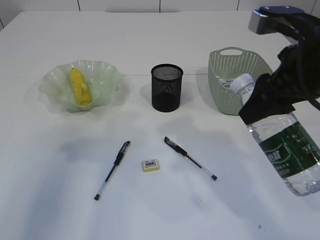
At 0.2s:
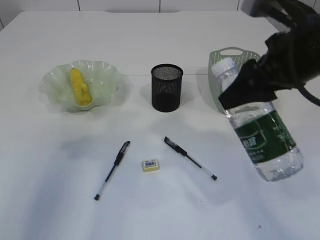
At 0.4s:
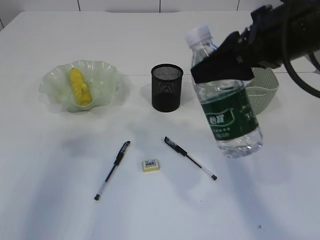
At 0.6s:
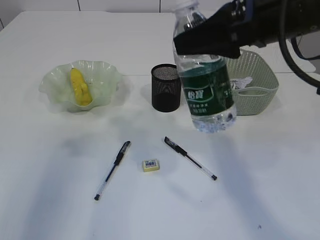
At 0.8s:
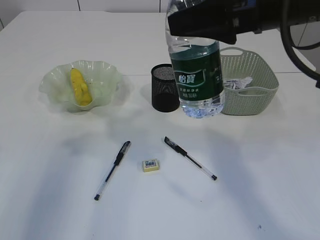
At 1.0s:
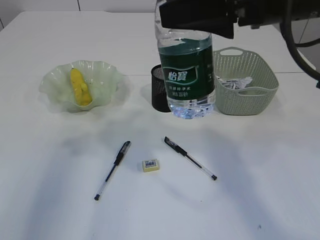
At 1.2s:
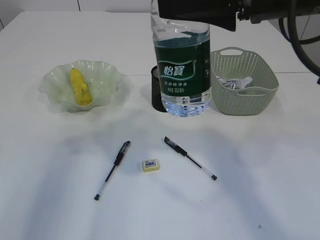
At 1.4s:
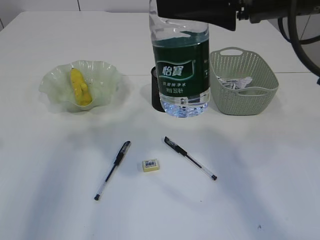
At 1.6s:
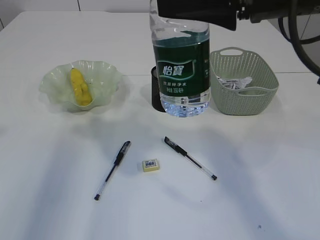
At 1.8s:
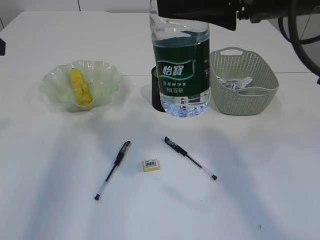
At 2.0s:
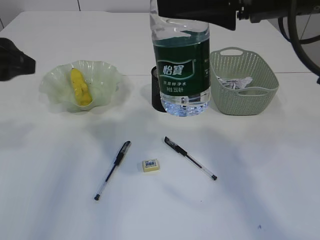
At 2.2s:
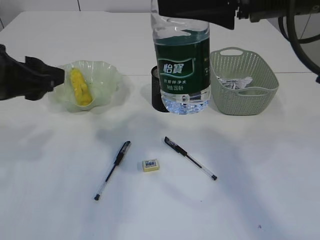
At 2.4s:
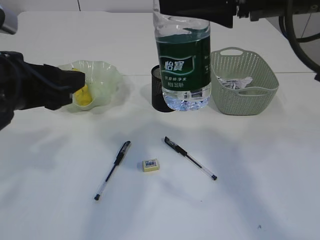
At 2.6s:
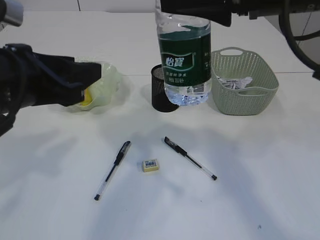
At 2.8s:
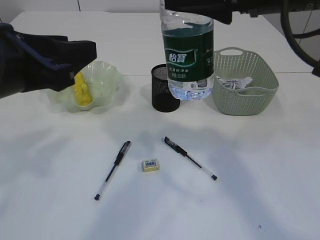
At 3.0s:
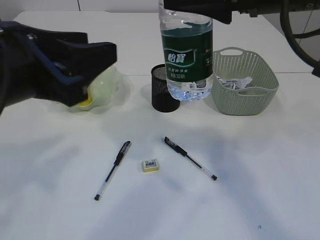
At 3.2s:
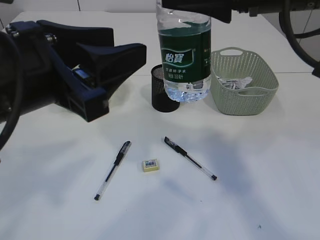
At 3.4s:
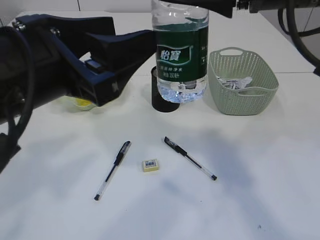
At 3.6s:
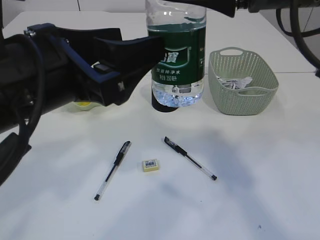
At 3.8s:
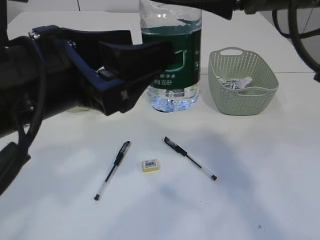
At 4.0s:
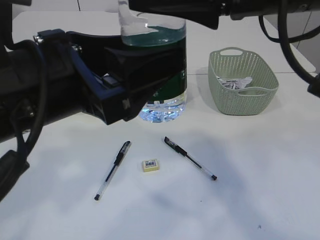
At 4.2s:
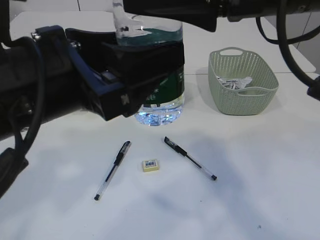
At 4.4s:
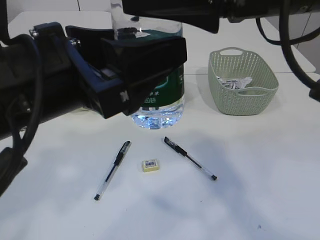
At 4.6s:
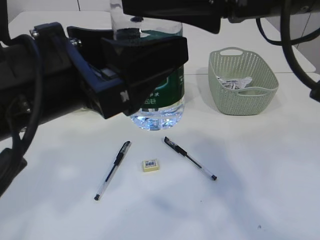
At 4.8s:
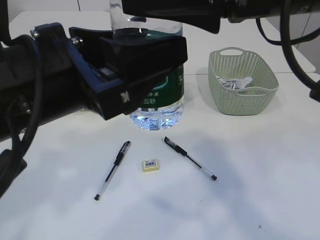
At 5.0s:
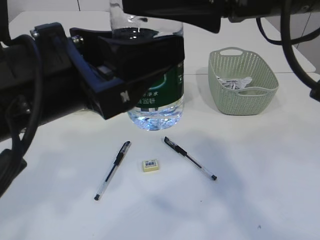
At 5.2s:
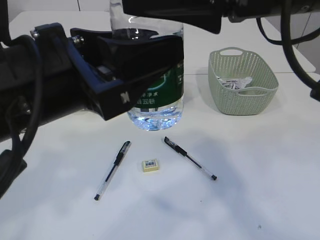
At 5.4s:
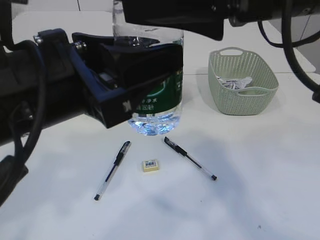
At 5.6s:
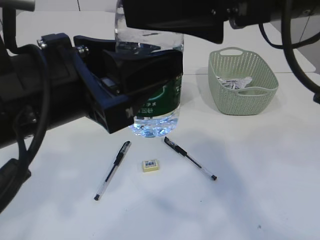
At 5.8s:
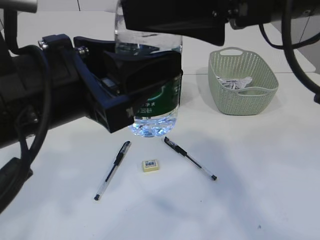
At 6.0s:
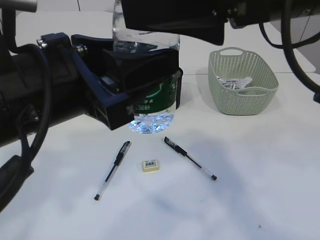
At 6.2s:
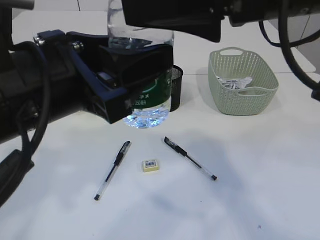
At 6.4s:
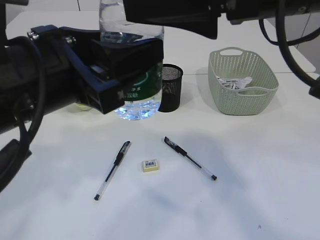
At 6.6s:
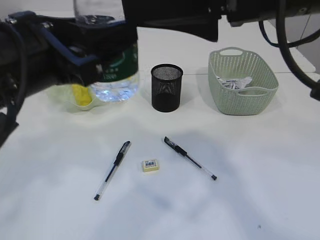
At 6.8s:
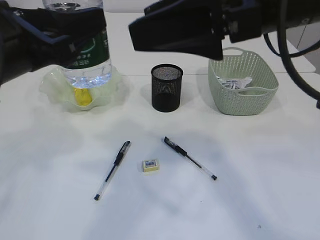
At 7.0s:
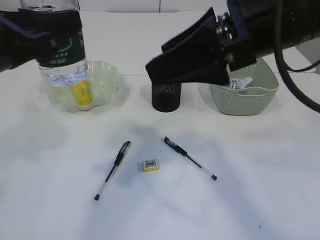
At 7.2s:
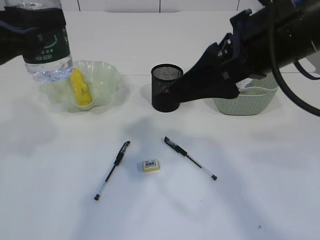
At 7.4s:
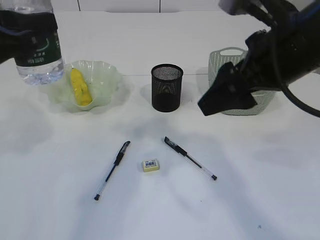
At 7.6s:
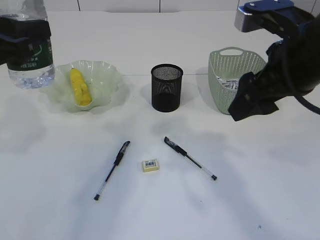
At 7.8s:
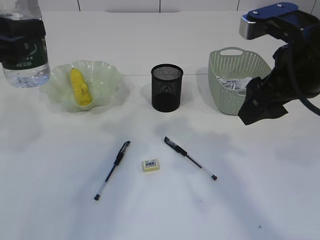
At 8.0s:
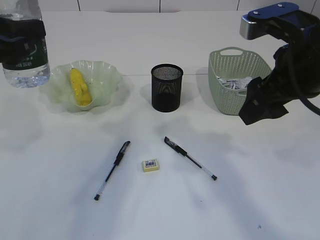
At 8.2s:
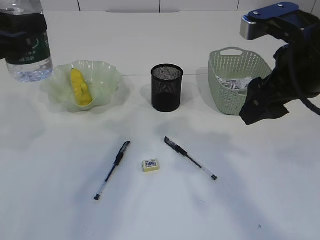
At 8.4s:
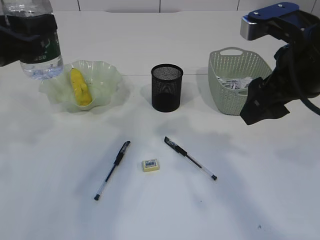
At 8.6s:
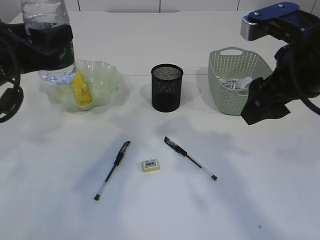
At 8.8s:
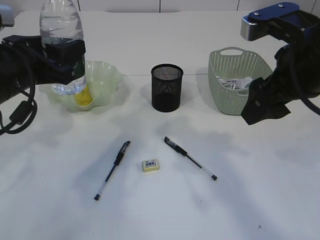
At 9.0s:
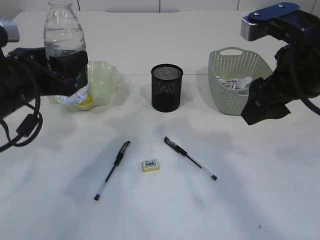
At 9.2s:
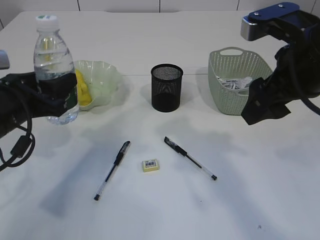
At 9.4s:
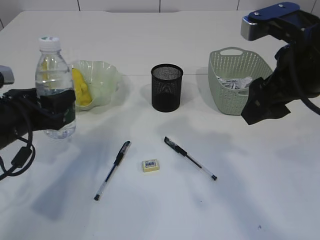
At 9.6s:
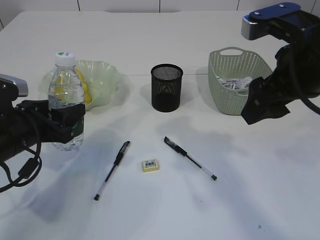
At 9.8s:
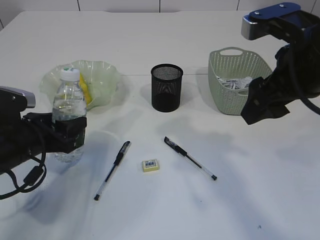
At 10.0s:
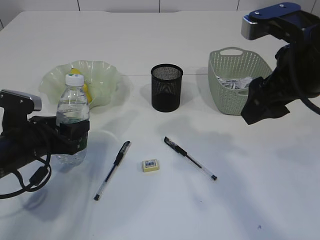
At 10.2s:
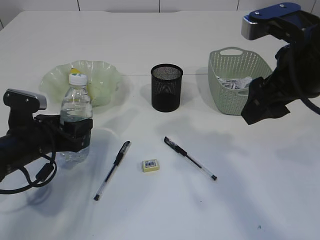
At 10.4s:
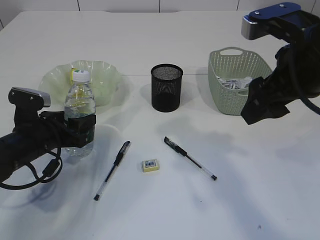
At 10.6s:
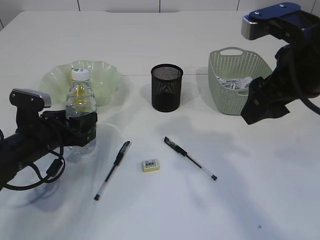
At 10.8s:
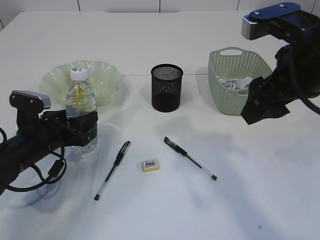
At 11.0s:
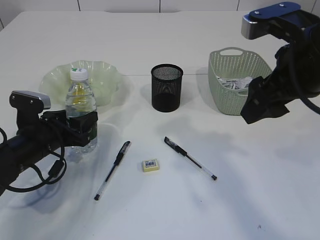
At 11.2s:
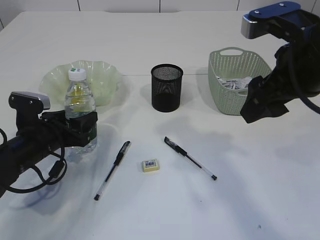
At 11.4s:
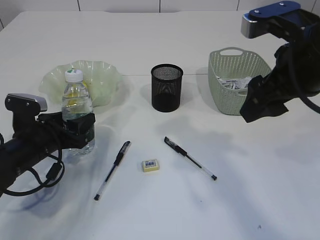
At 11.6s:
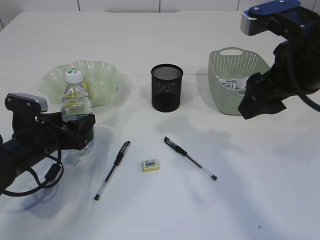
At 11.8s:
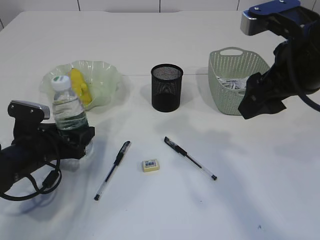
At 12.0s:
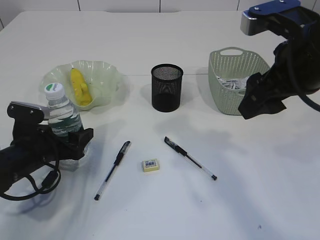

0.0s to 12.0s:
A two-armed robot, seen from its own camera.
Step, 0.0s to 6.4s: transfer the bottle to the left arm.
0.0s to 1.6s: The right gripper travels upward and to the left by roughly 10 cm.
1.6s to 3.0s: The left gripper heads to the right and backward, covering approximately 15 cm.
3.0s to 4.4s: The left gripper moves about 5 cm, and opens.
4.4s to 6.0s: The left gripper closes up.
6.0s to 7.6s: The right gripper travels downward and to the right by some 10 cm; the left gripper shifts about 15 cm to the left and forward.
7.6s to 9.0s: The left gripper moves downward, some 5 cm.
9.0s to 10.4s: The left gripper is displaced downward by roughly 15 cm.
10.4s to 12.0s: The grippers stay close to where they were, moving slightly.

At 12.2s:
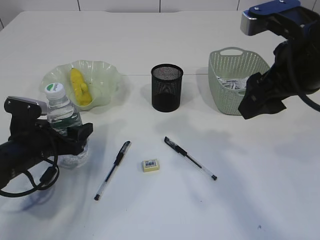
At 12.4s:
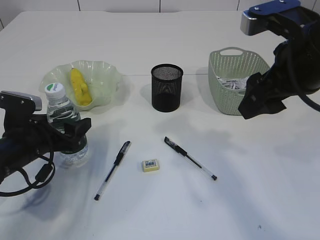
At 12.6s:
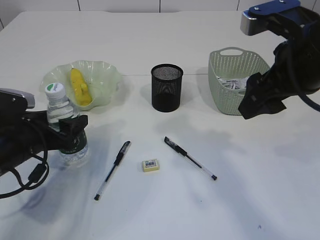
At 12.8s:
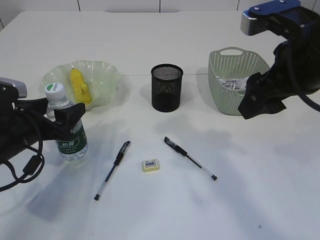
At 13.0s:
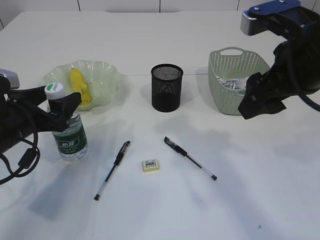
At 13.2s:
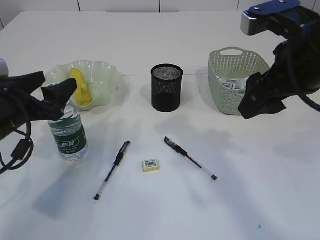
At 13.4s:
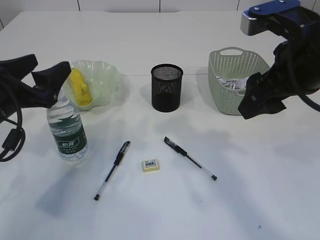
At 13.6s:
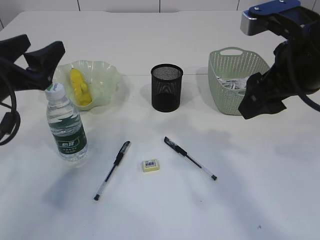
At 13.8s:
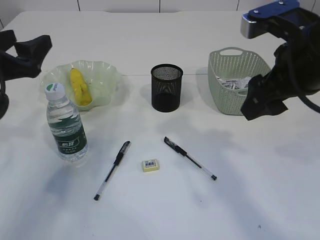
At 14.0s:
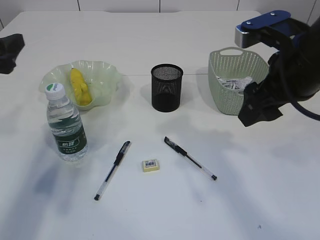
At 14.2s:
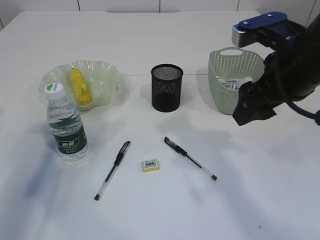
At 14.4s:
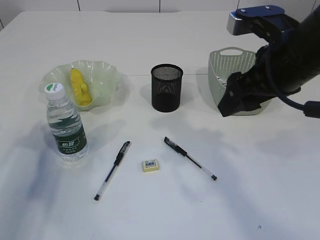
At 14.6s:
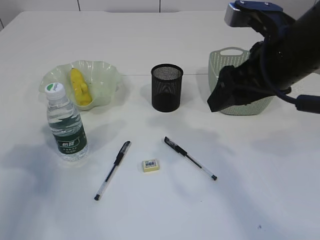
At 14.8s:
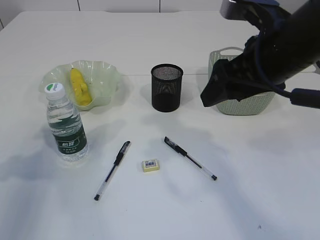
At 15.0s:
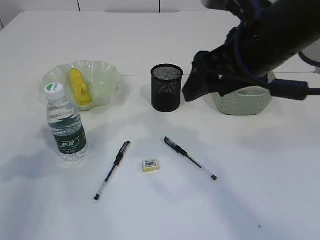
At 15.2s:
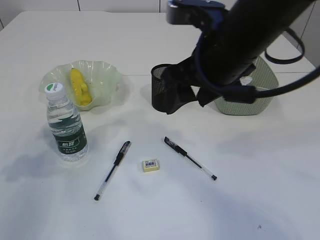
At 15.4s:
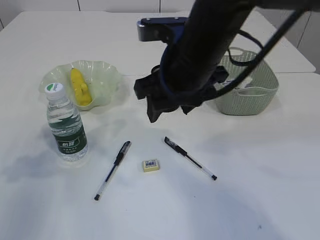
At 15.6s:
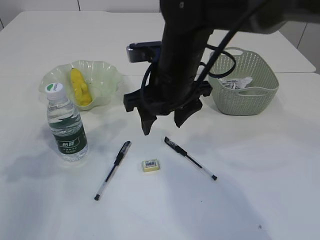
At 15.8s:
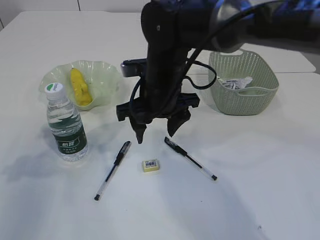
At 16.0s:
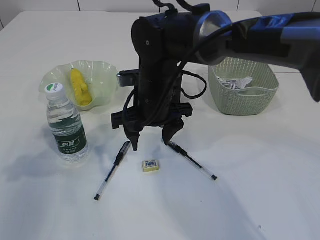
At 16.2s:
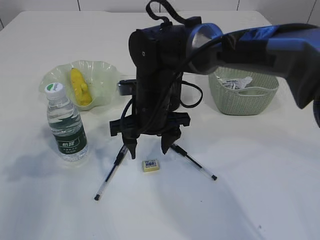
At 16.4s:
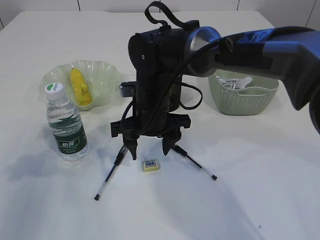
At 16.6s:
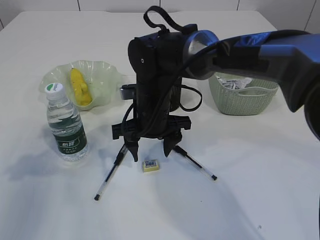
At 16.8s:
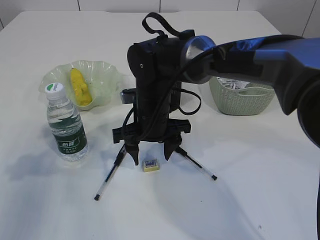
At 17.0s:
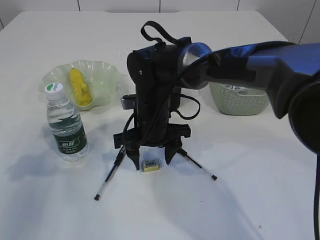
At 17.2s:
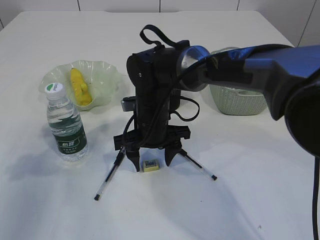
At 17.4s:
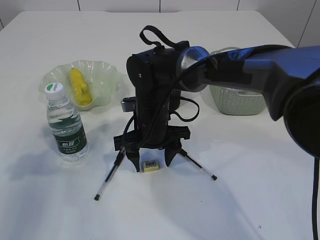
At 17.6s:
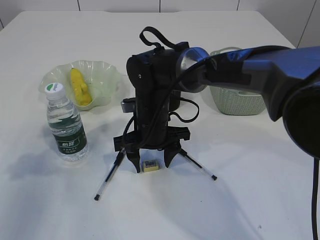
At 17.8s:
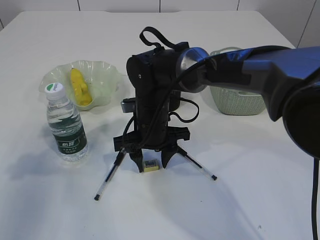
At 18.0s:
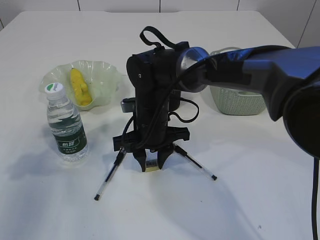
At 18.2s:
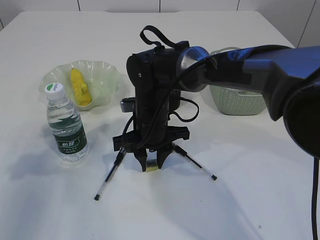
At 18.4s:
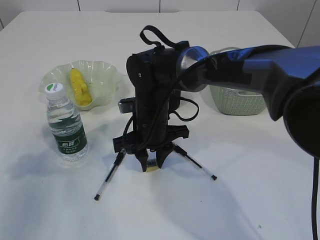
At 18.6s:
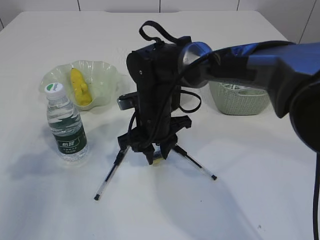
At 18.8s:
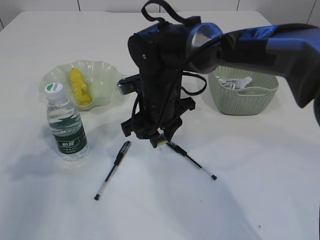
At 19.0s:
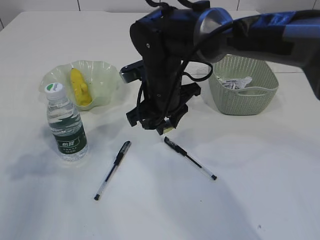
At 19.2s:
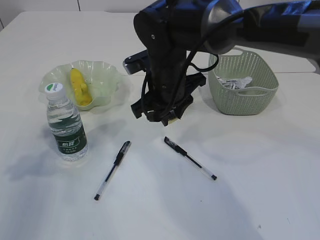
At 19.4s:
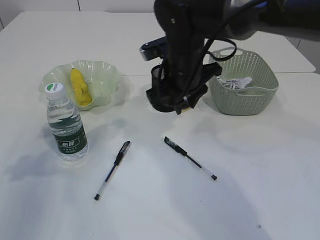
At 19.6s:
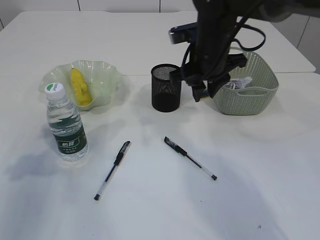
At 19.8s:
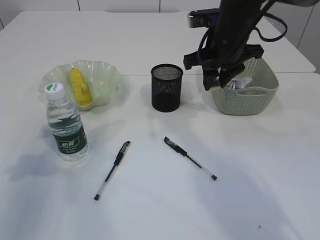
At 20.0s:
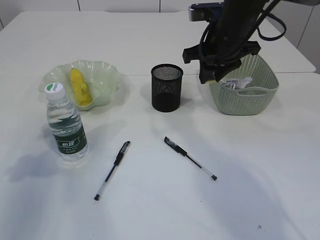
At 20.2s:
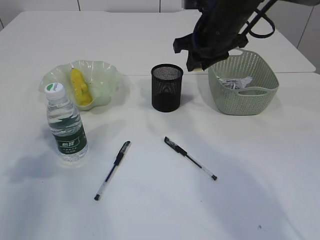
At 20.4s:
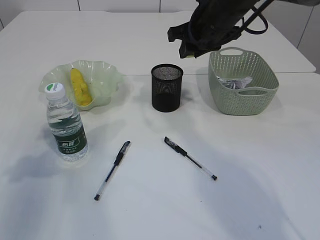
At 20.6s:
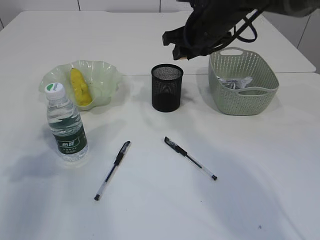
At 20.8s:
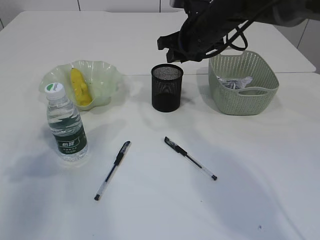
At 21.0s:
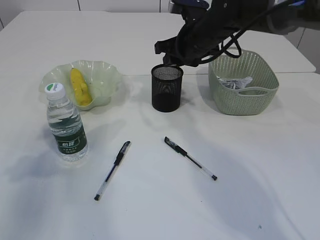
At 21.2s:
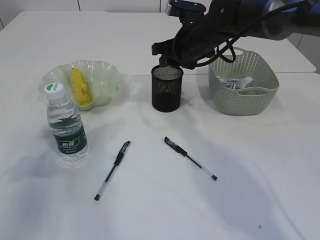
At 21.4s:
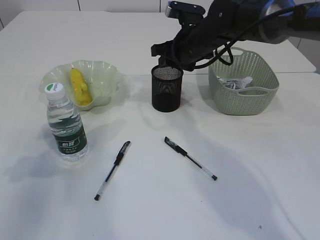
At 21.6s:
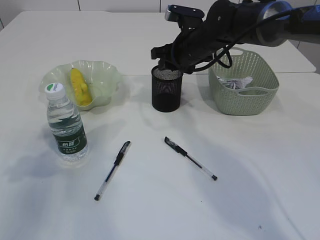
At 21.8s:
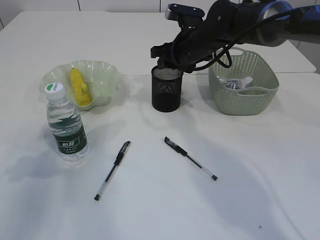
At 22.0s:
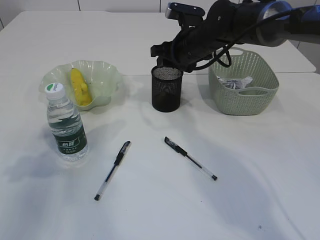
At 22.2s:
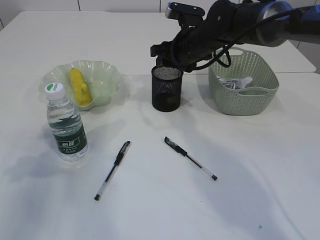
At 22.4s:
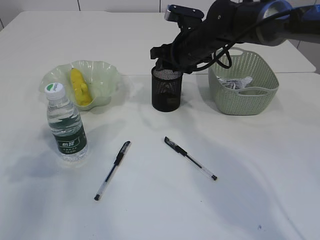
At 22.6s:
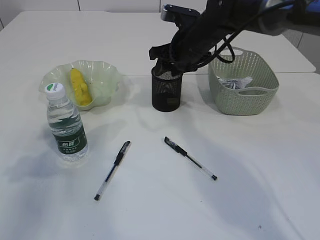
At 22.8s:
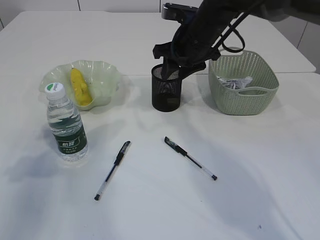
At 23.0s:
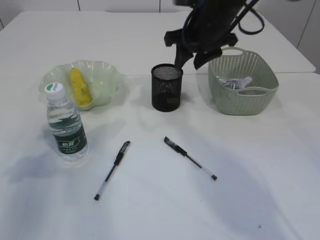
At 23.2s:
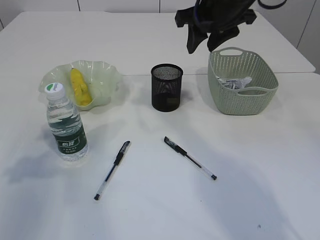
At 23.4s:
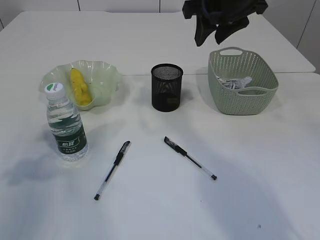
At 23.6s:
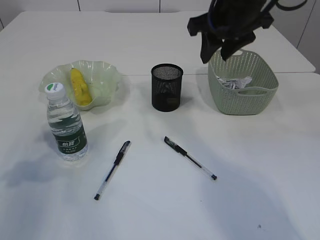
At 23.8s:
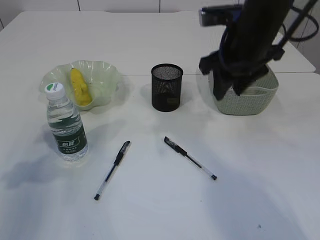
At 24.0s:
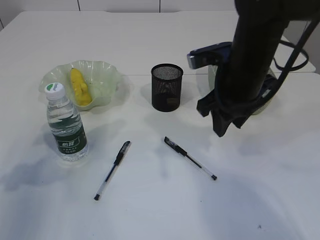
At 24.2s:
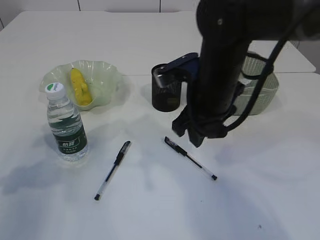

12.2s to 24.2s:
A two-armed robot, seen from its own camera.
Step, 13.2s to 18.8s: Pick up the eraser.
Step, 19.0s to 23.0s: Place the eraser into the pen holder.
12.2s to 13.8s: The left gripper heads upward, covering some 15 cm.
13.8s to 15.2s: The left gripper shifts about 10 cm to the left and backward. Meanwhile the right gripper goes some 10 cm to the left.
15.2s to 16.6s: The right gripper shifts roughly 20 cm downward, to the left and forward.
16.6s to 18.2s: The right gripper closes.
18.2s to 19.8s: The right gripper travels to the right and upward by roughly 20 cm.
19.8s to 21.2s: The right gripper is displaced forward by about 5 cm.
21.2s to 22.6s: The grippers make only small movements.
22.6s to 24.2s: The right gripper heads backward, covering about 15 cm.
